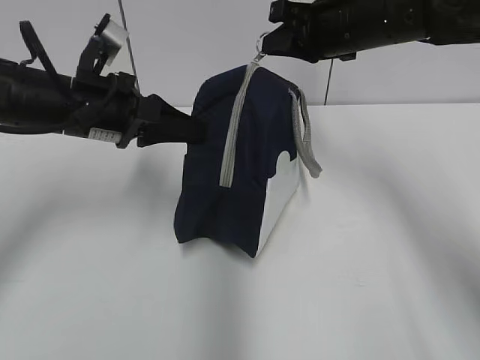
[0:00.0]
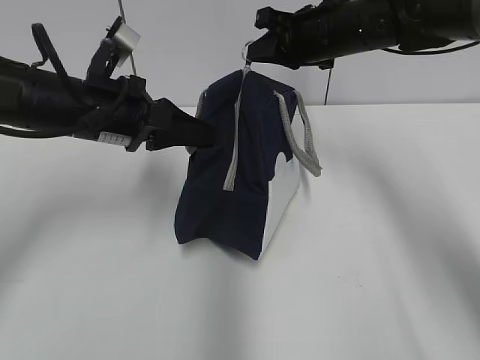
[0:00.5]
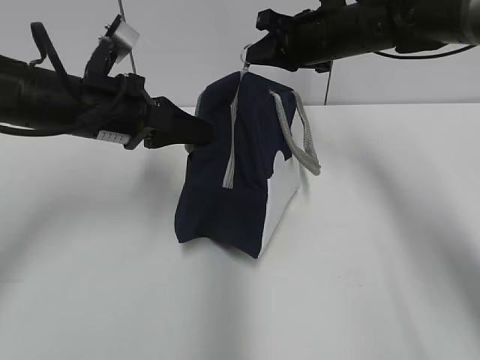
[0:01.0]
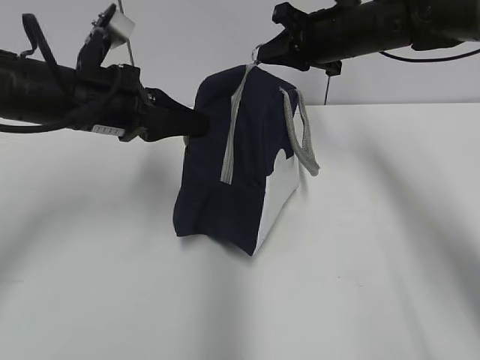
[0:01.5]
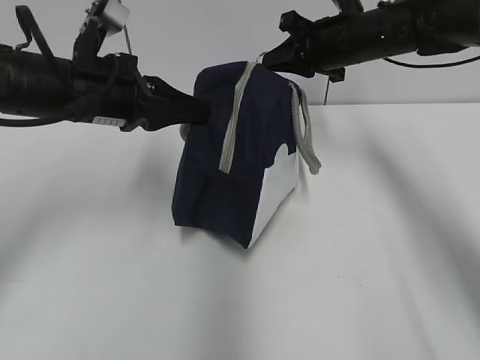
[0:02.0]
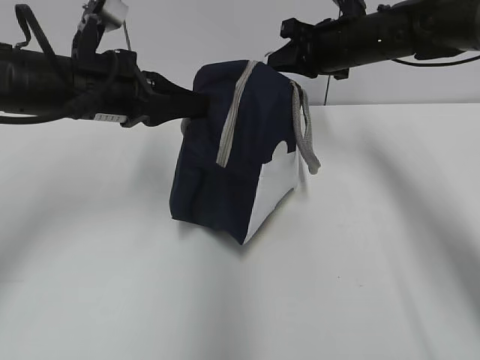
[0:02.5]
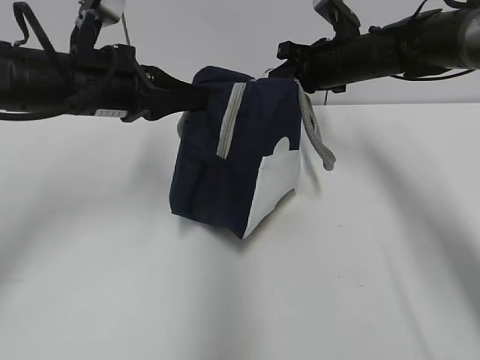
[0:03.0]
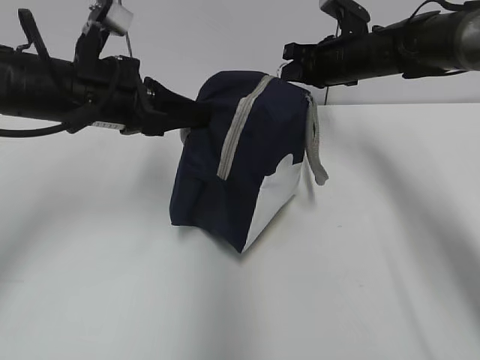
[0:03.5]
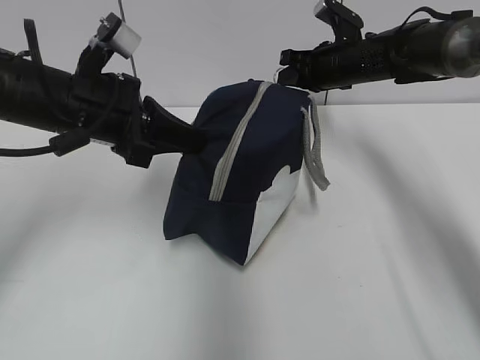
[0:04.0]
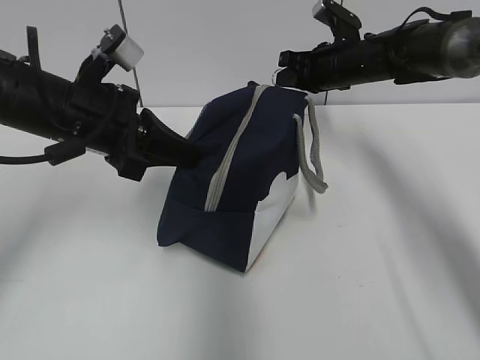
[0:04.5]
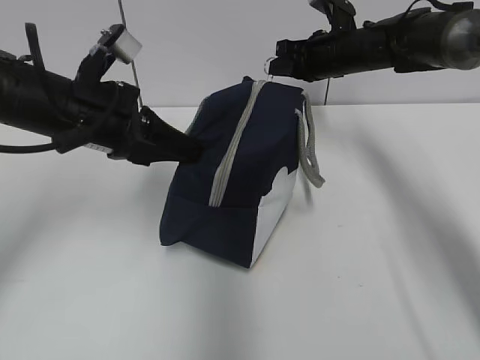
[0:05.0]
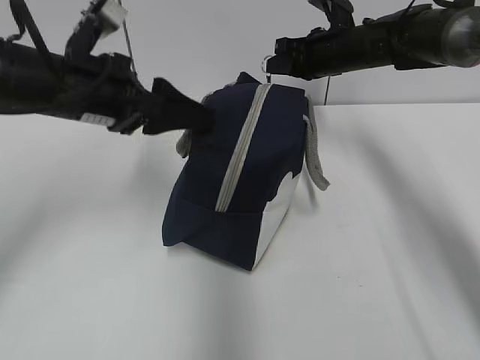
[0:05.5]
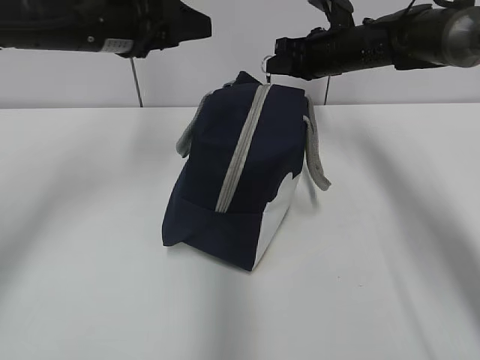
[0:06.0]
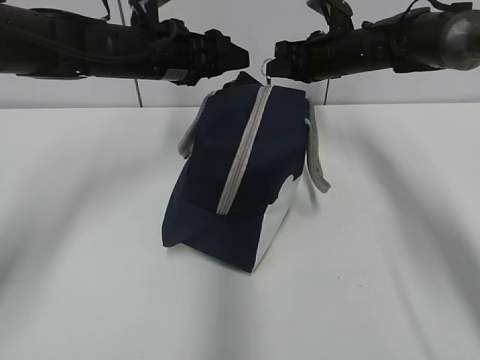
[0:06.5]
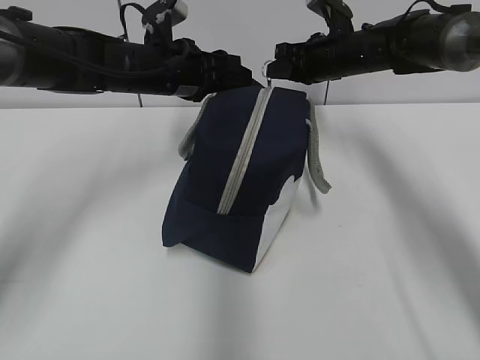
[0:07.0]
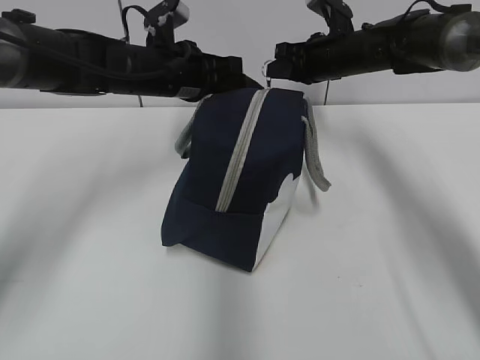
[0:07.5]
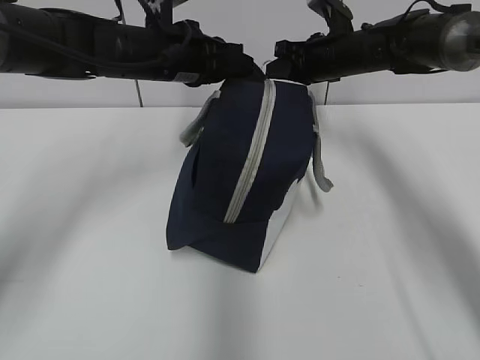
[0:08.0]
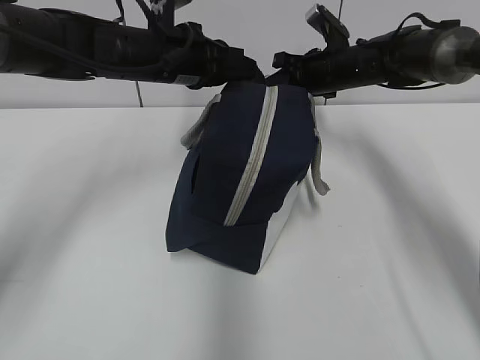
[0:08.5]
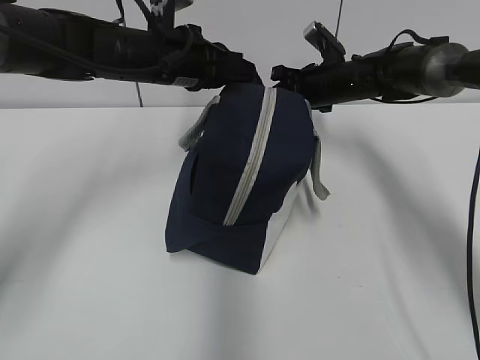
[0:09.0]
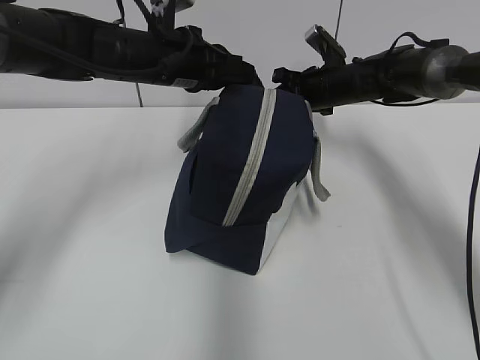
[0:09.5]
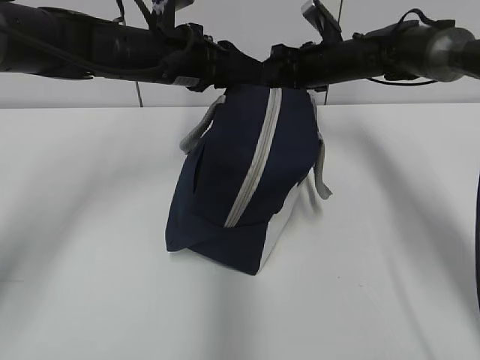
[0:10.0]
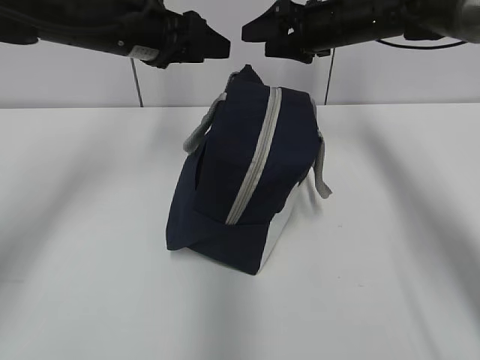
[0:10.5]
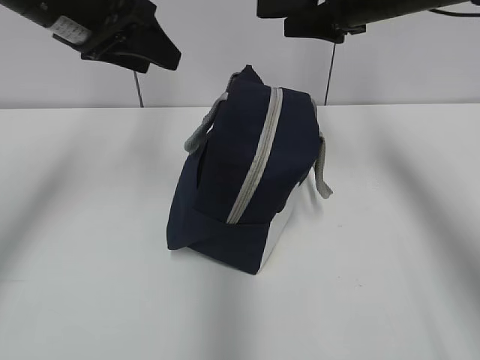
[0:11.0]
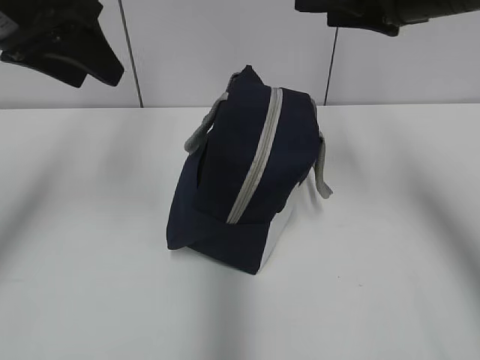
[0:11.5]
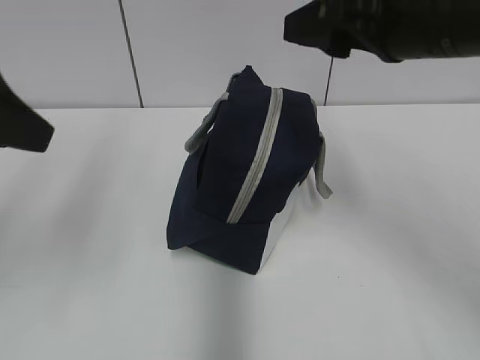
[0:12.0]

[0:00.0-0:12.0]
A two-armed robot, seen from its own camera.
Step, 0:00.0 to 0:09.5: Pull the zipper with your right hand.
0:00.0 to 0:02.0: The right gripper shifts some 5 cm forward.
0:02.0 to 0:04.0: The right gripper changes place by approximately 5 cm.
0:04.0 to 0:06.0: The left gripper moves upward and forward, roughly 10 cm, and opens its fingers.
0:06.0 to 0:08.0: The left gripper moves to the right and downward, roughly 10 cm, and closes up.
0:08.0 to 0:10.0: The left gripper opens its fingers, while the right gripper opens up.
0:10.0 to 0:12.0: The left gripper is displaced backward, to the left and upward by about 25 cm, while the right gripper heads backward and upward, covering some 30 cm.

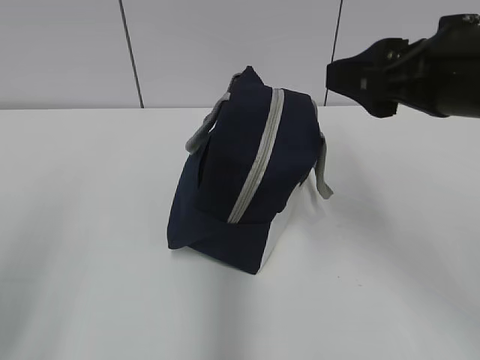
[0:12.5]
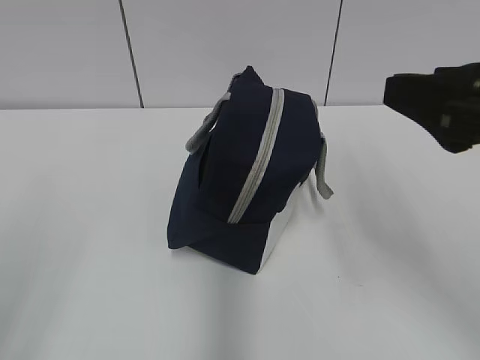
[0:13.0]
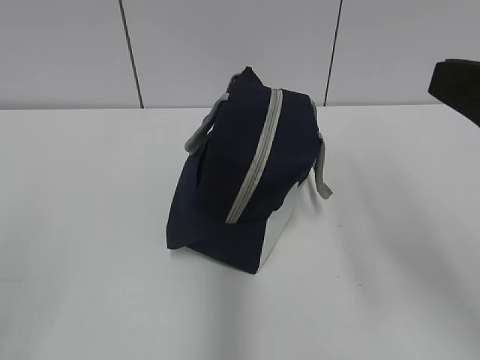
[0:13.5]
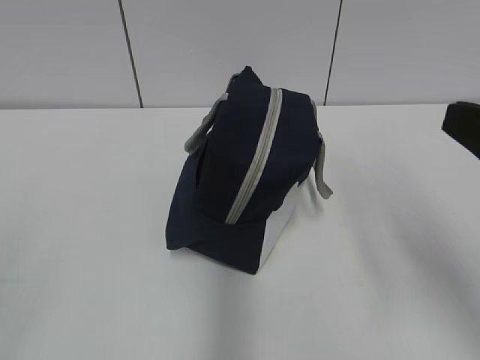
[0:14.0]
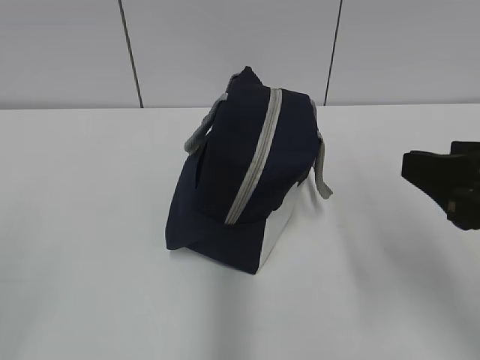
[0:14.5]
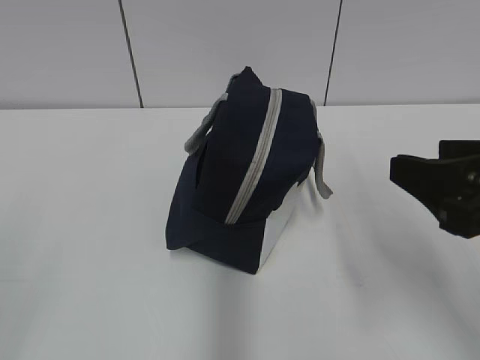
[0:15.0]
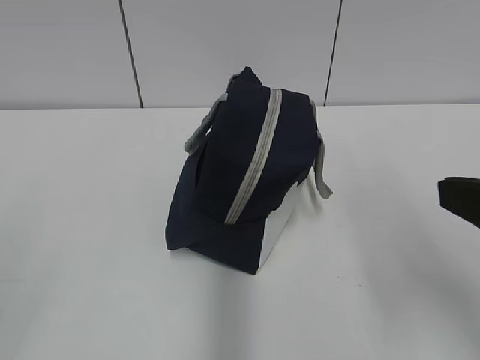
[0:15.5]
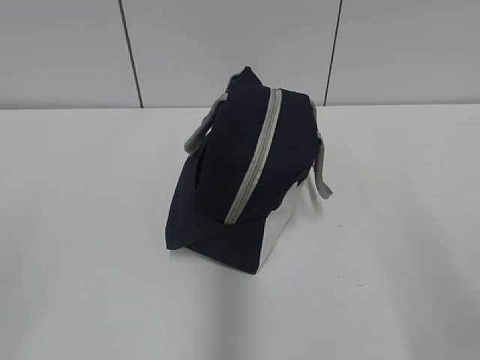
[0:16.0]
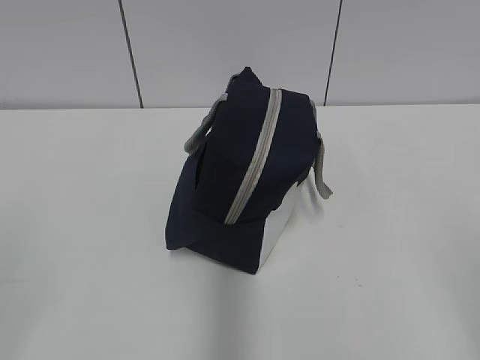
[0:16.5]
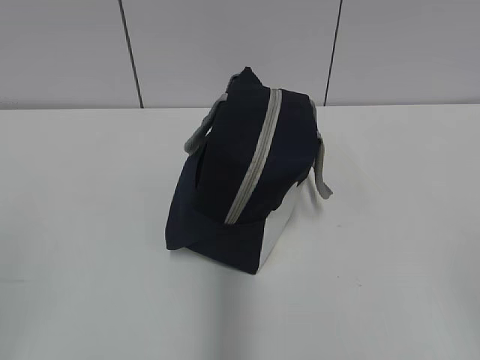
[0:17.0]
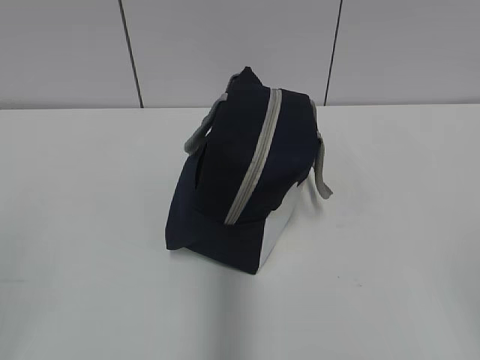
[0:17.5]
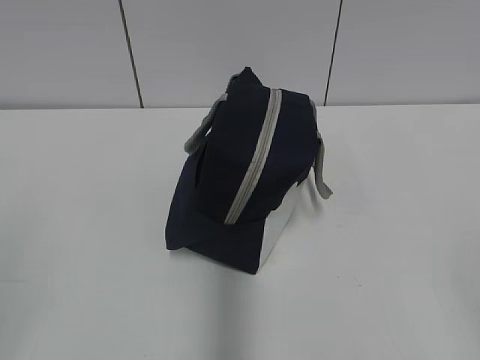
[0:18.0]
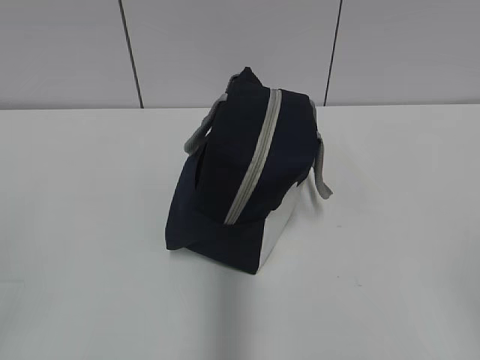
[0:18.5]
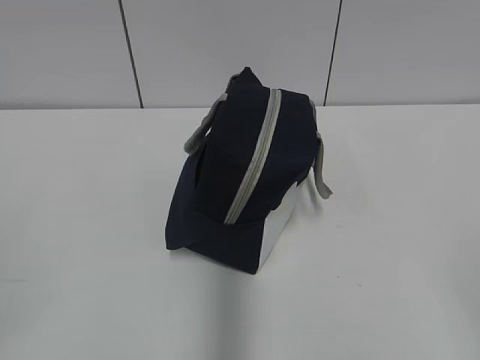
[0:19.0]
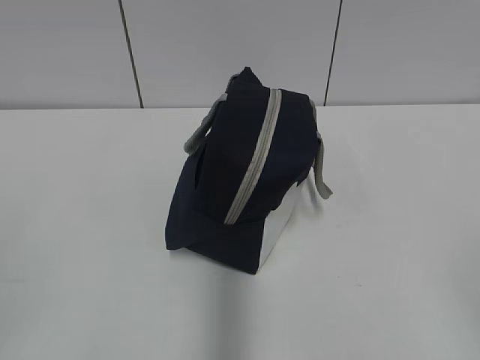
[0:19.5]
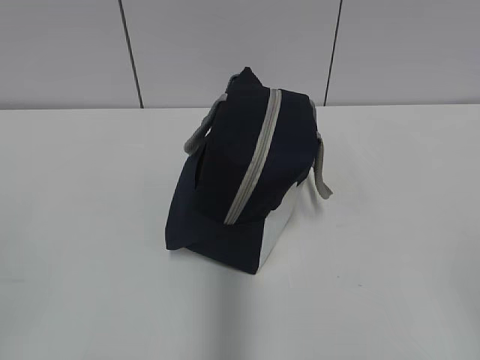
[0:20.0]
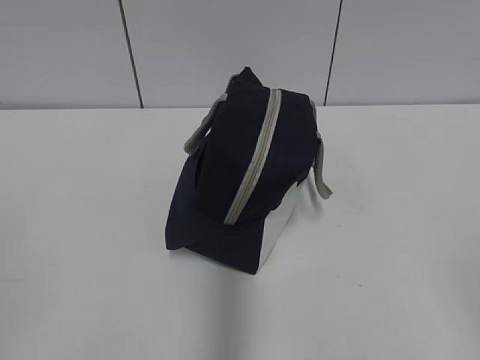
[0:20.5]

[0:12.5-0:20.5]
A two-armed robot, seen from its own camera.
0:12.5 to 0:14.5: Both grippers move backward, roughly 5 cm.
0:14.5 to 0:16.5: The right gripper goes roughly 15 cm backward and to the right.

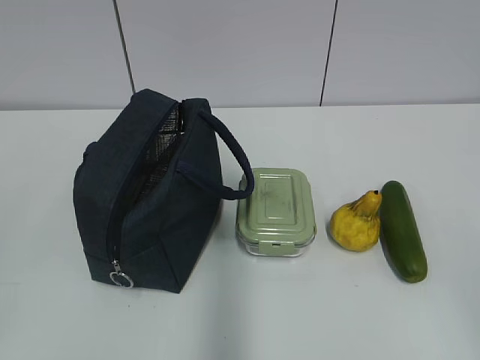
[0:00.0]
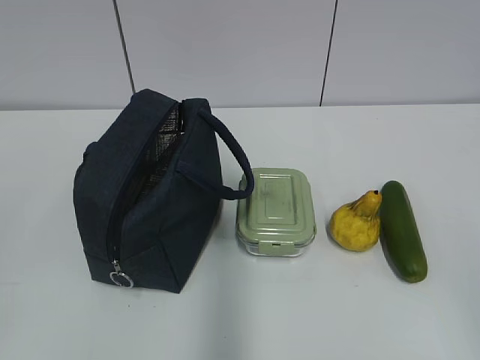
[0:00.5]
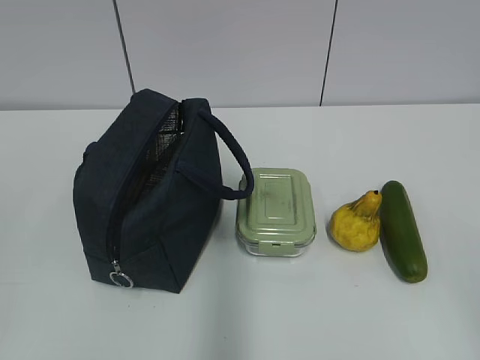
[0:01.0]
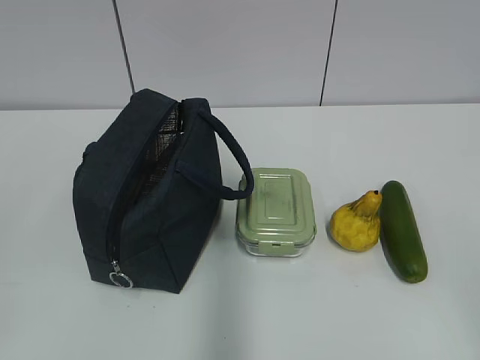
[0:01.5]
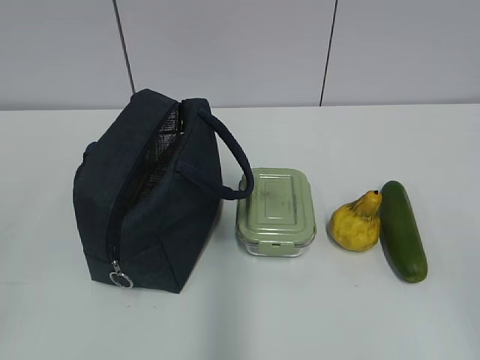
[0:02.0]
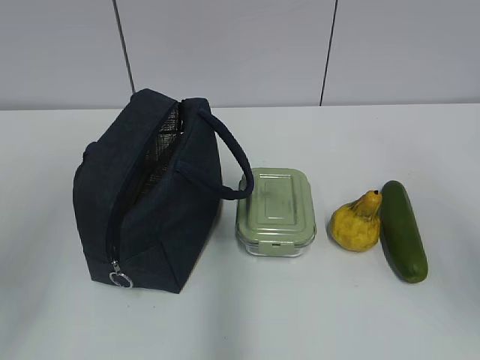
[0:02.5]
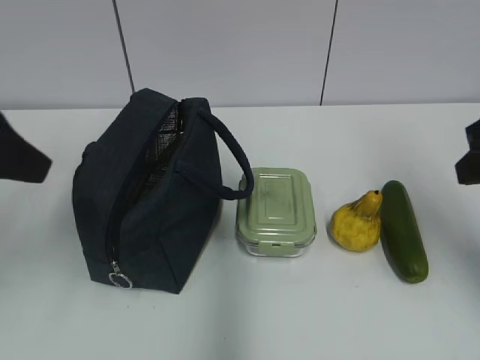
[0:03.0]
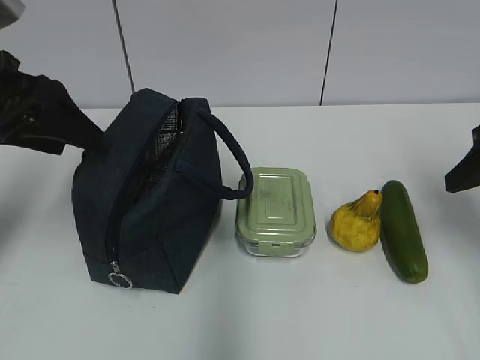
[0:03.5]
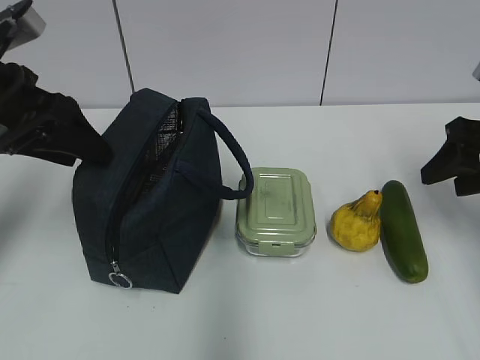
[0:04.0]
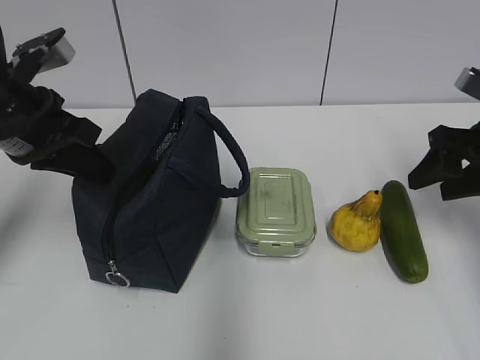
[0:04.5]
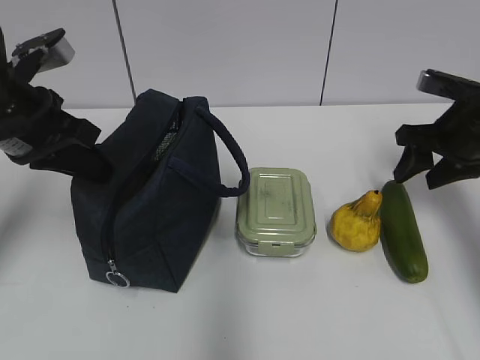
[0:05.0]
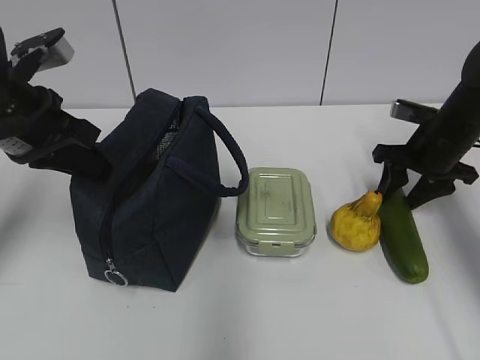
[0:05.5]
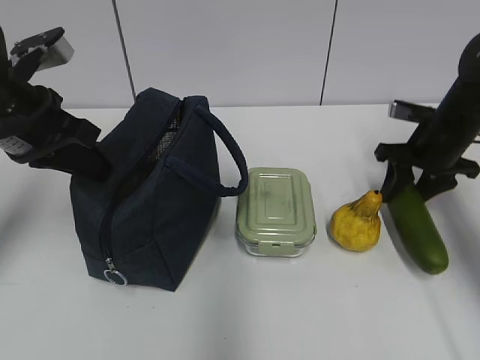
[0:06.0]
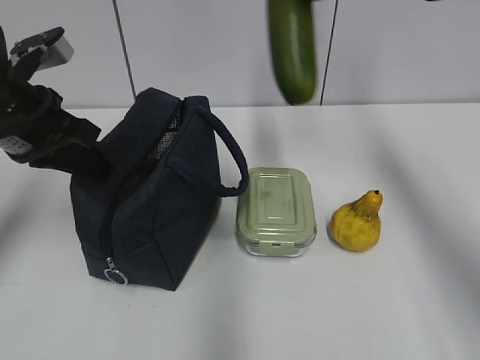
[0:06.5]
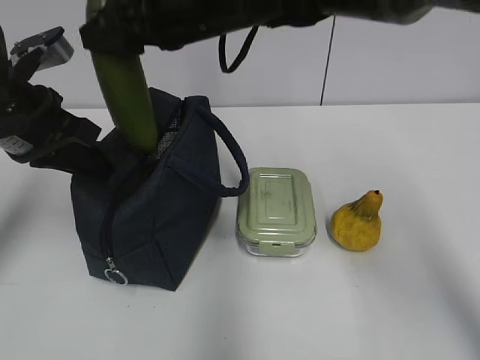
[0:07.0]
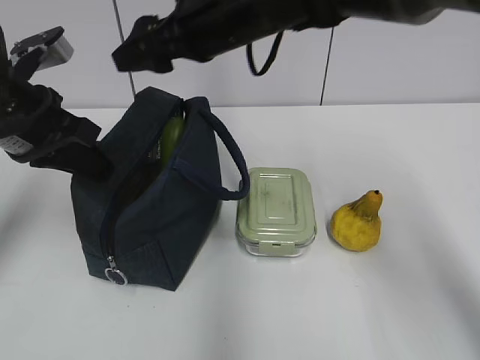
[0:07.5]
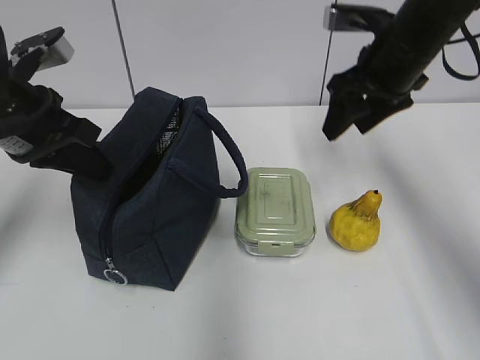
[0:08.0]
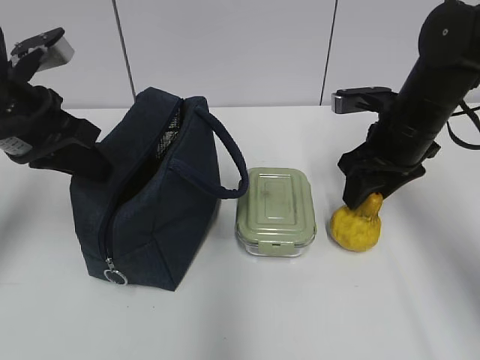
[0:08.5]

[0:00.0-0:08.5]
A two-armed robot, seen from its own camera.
Step, 0:00.0 to 0:05.5: Grab the cucumber with your right hand.
0:02.0 to 0:04.0: Both grippers move forward, approximately 30 cm. The left gripper opens its fingers.
0:04.0 to 0:06.5: The left gripper closes up. The right gripper shifts roughly 25 cm to the left, upward and forward.
0:06.5 to 0:08.5: The right gripper travels downward by some 20 cm, and moves some 15 cm to the left and comes back.
